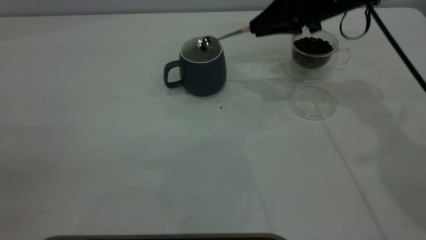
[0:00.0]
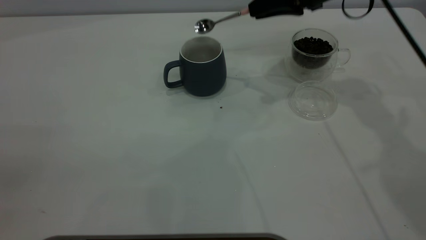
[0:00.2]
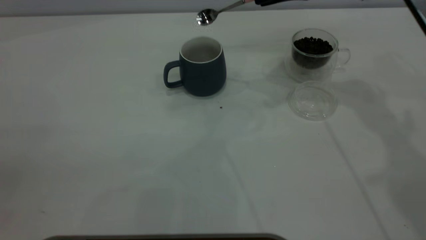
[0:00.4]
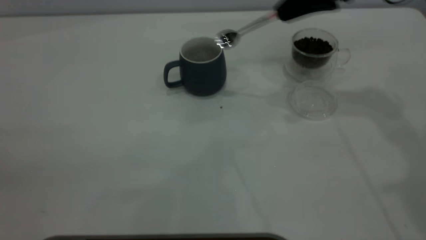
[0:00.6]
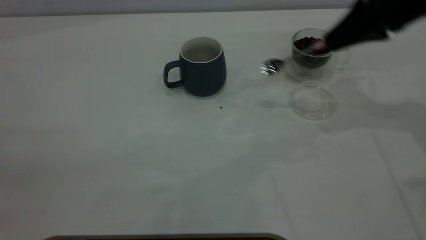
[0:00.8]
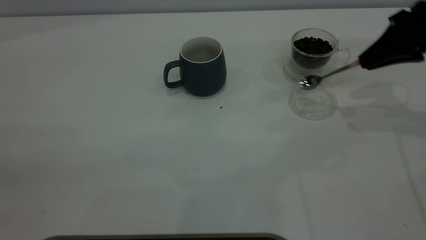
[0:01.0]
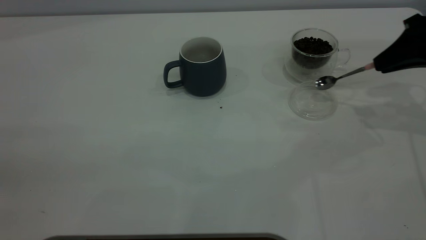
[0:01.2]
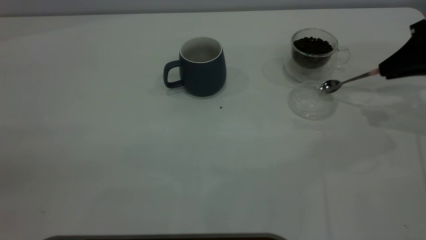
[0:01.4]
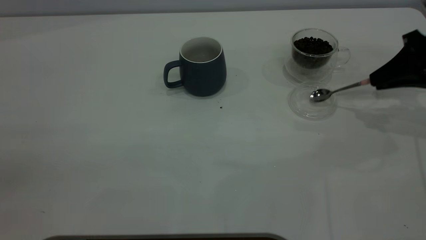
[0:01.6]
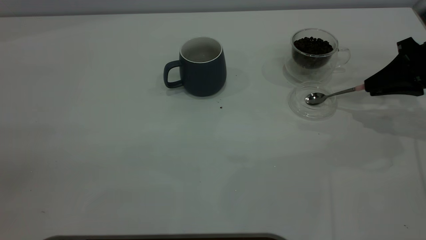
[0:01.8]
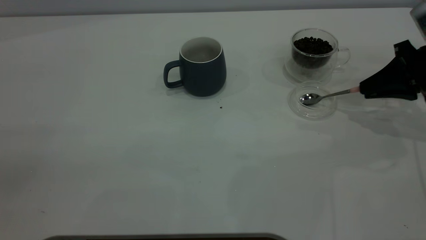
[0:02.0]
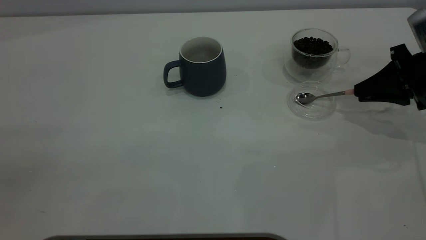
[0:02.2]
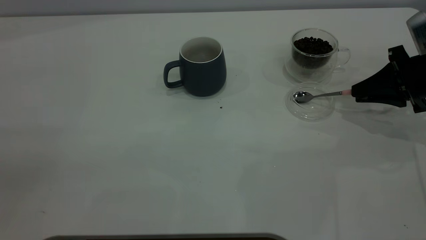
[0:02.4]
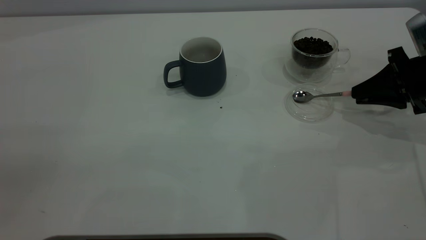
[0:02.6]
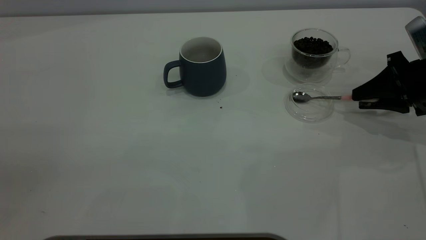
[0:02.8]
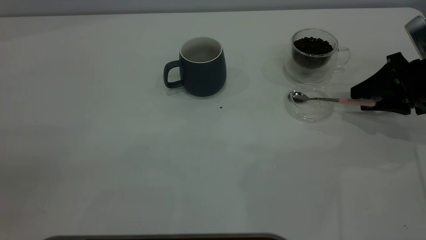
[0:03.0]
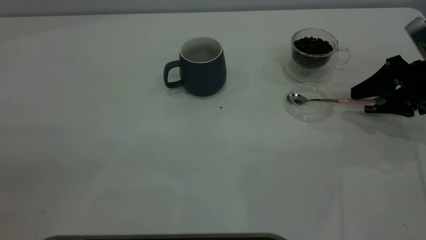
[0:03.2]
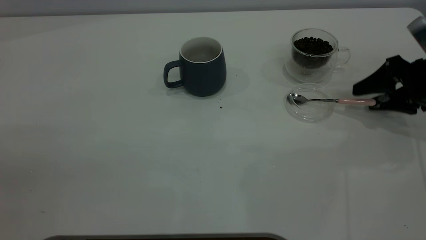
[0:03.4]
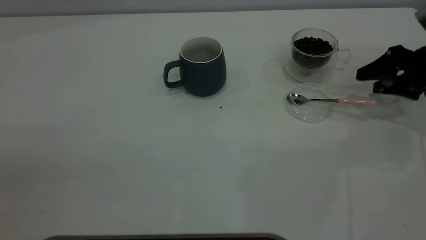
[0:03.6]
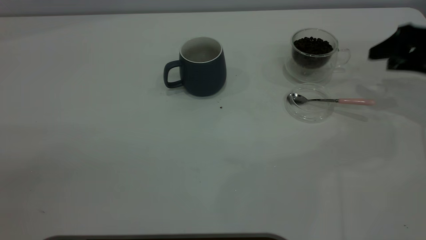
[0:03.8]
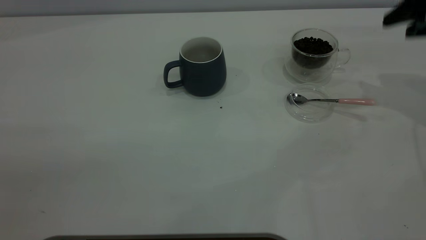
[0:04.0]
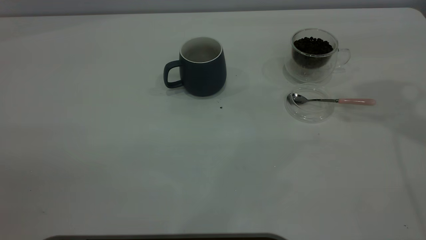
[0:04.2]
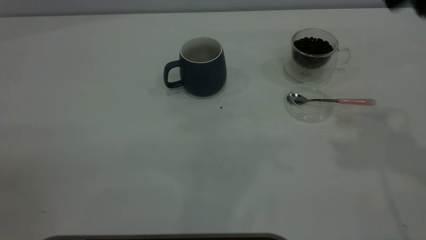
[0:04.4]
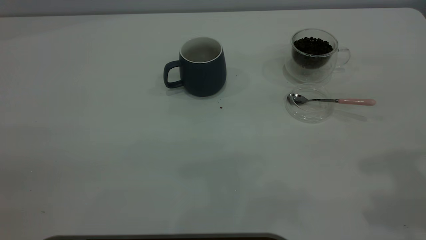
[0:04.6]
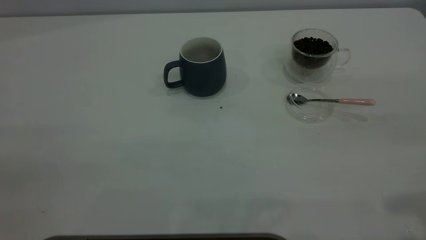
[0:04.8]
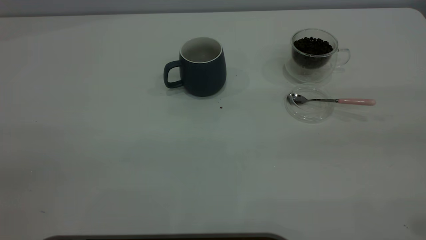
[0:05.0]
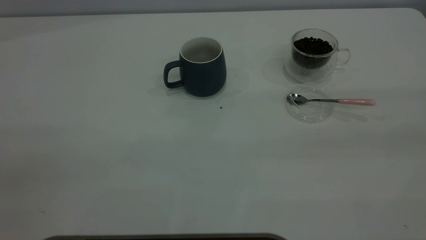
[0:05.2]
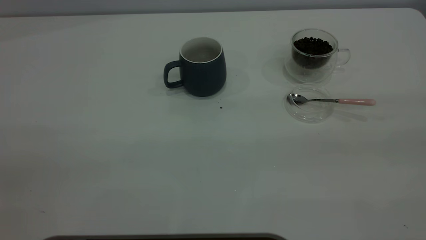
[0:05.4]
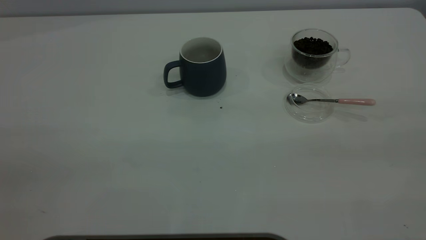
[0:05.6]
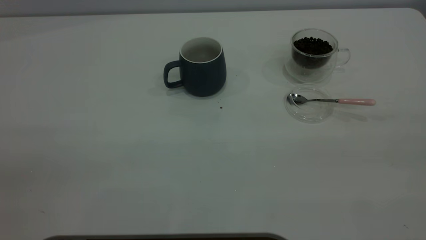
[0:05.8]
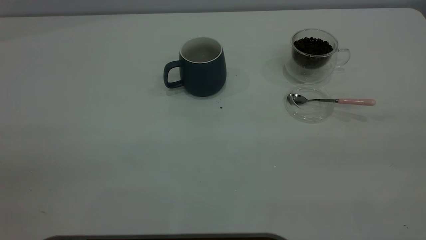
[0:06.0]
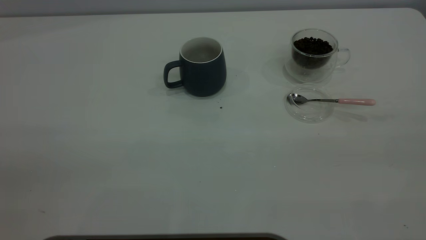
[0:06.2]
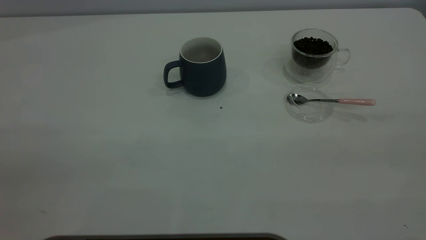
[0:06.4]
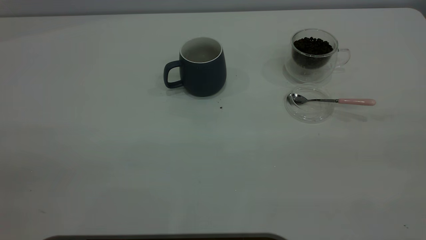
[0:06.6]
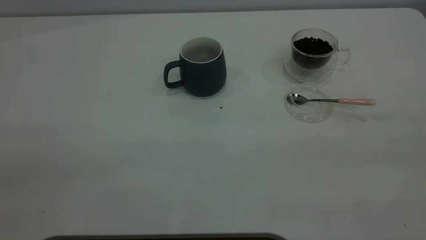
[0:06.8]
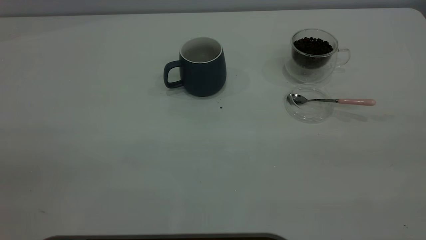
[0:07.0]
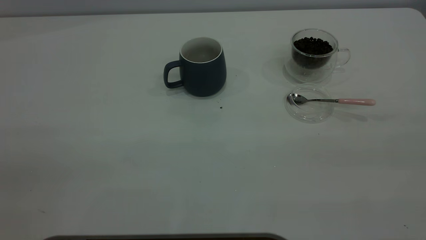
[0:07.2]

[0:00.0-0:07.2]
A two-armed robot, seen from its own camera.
Task of the whole recording: the left gripper place the grey cup in the center of the table, the right gripper take the pink spoon from the cup lid and scoop out the coffee beans from the coffee cup and put them into the grey cup, the right gripper put the spoon back into the cup lid.
Step, 0:00.6 to 0:03.4: Place the spoon back in its original place.
0:00.0 to 0:01.4: The right gripper goes roughly 20 cm to the right and backward.
0:01.4 to 0:02.8: The right gripper goes about 5 cm downward, and opens up.
0:02.8 to 0:04.4: The right gripper moves upward, roughly 25 cm, and opens its fingers.
0:05.8 to 0:07.2: Both grippers stay put.
